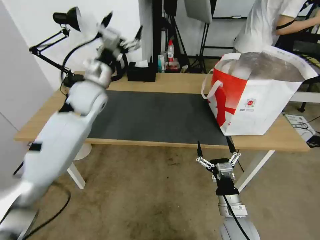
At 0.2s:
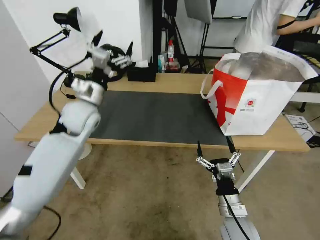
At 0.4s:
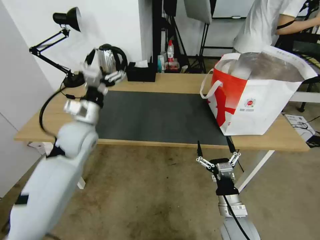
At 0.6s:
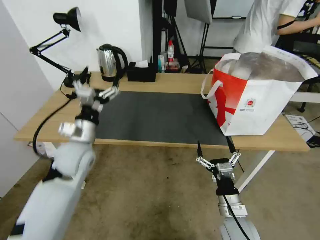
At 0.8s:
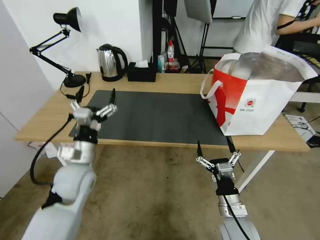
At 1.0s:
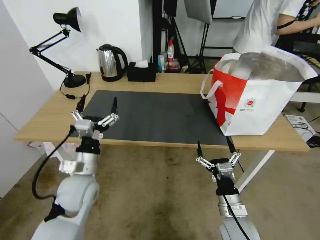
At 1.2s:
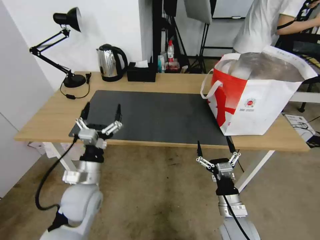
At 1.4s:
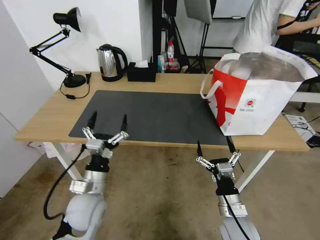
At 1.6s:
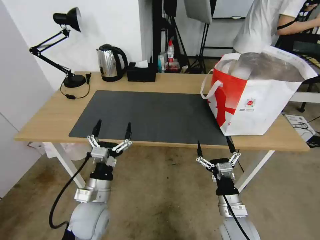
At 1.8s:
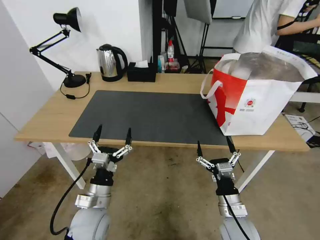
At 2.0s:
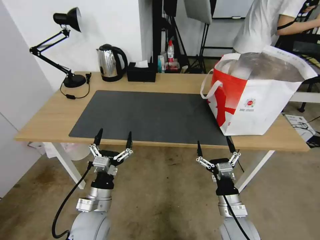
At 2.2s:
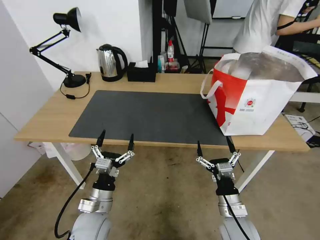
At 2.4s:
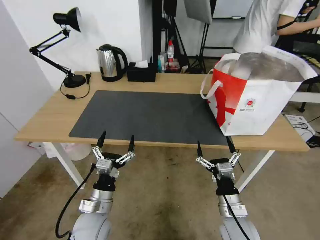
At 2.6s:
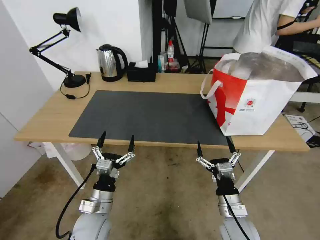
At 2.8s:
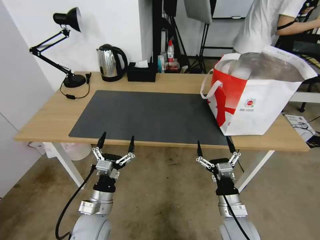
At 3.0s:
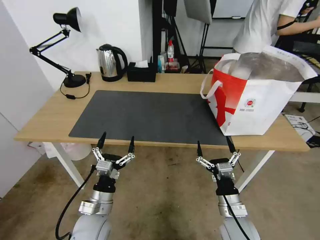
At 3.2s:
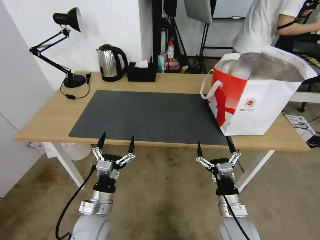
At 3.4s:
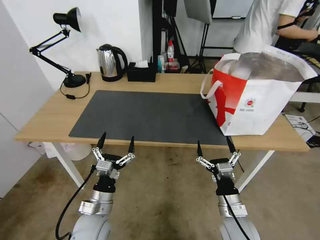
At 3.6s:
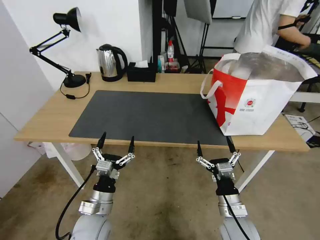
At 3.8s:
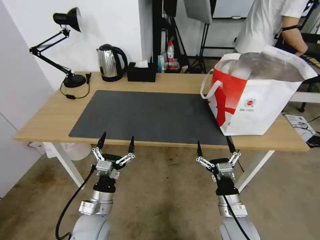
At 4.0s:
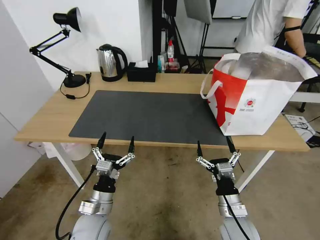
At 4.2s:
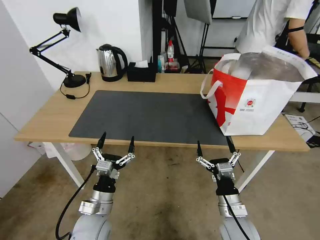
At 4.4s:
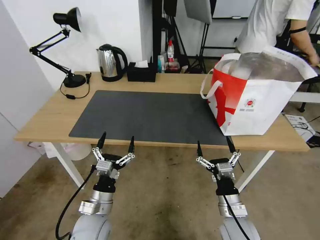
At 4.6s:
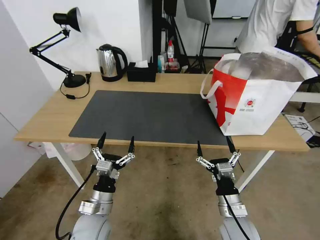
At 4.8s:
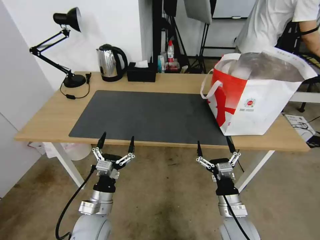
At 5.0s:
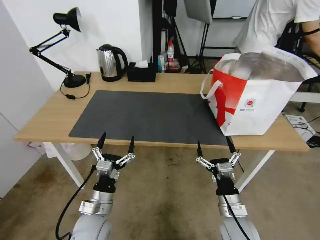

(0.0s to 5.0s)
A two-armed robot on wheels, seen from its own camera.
Task of the whole recording: Pick up the trash from the table and place it into the takeout bag.
0.0s - 1.6s: The left gripper is displaced backward and downward by about 35 cm.
1.6s - 3.4s: The grippers move only a little.
3.4s - 5.0s: The two grippers keep their place.

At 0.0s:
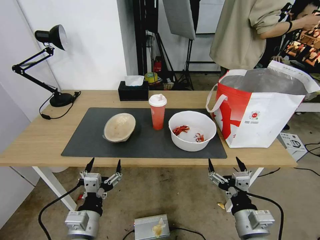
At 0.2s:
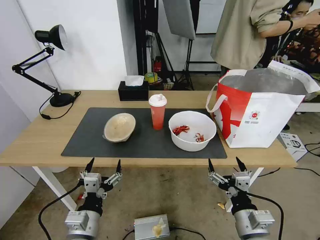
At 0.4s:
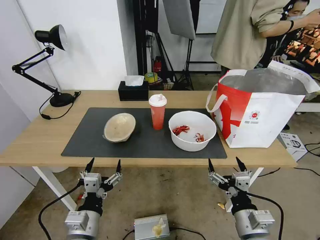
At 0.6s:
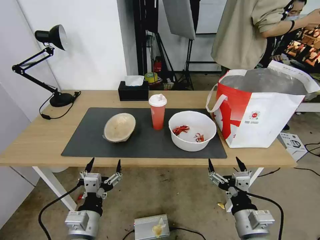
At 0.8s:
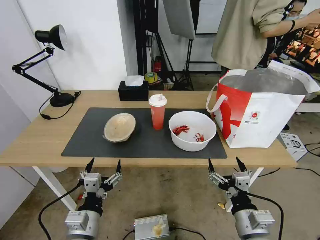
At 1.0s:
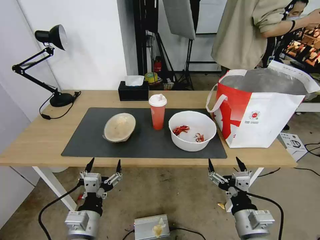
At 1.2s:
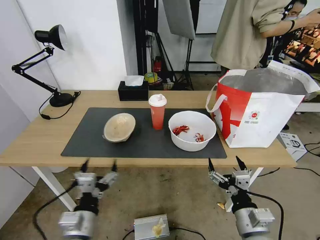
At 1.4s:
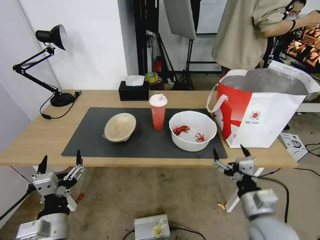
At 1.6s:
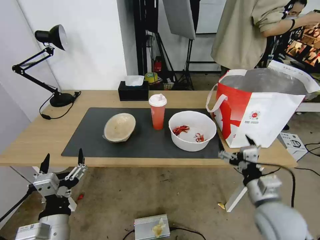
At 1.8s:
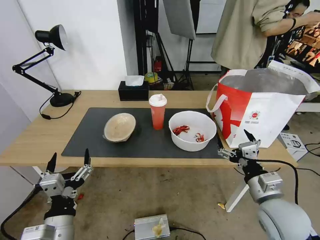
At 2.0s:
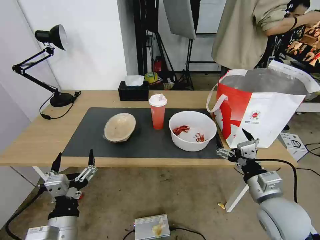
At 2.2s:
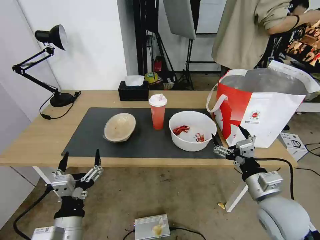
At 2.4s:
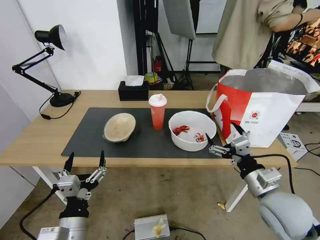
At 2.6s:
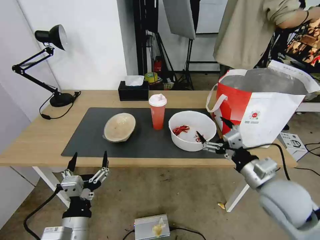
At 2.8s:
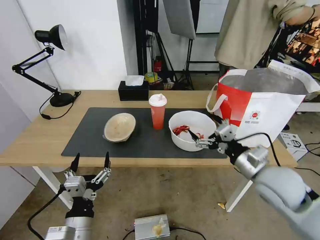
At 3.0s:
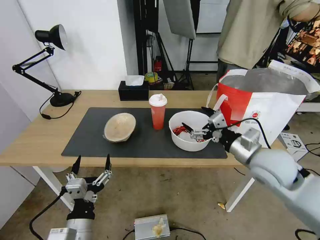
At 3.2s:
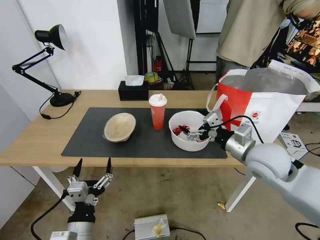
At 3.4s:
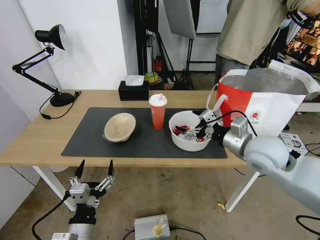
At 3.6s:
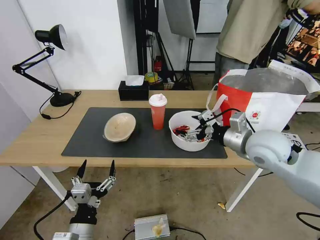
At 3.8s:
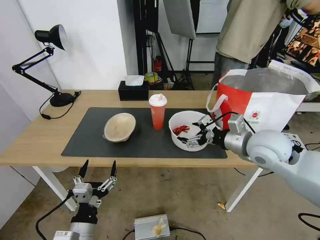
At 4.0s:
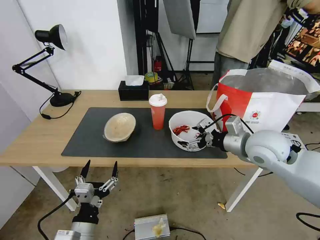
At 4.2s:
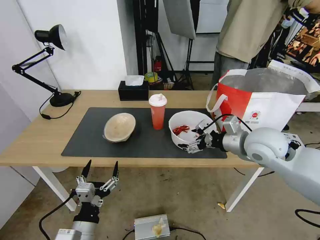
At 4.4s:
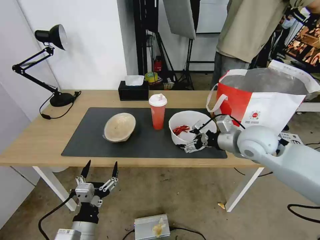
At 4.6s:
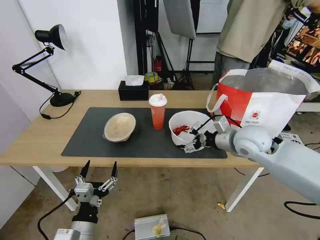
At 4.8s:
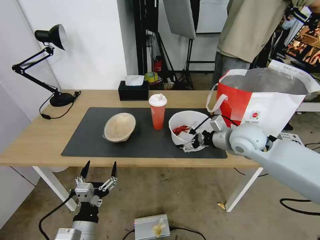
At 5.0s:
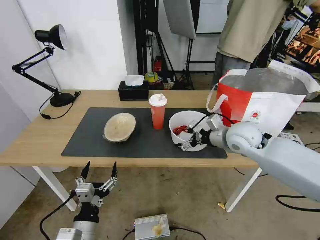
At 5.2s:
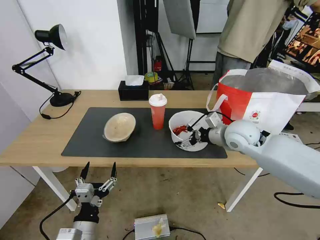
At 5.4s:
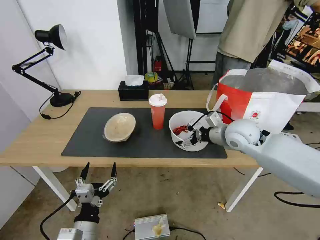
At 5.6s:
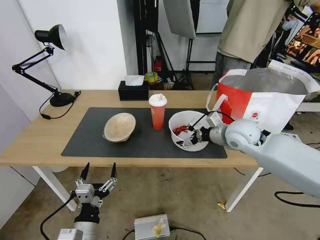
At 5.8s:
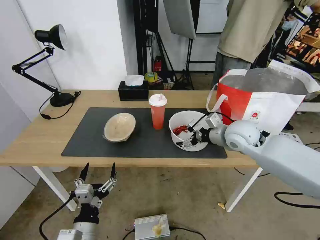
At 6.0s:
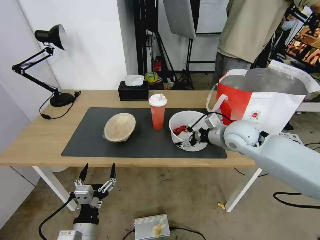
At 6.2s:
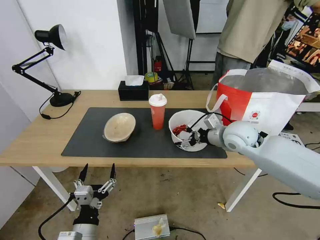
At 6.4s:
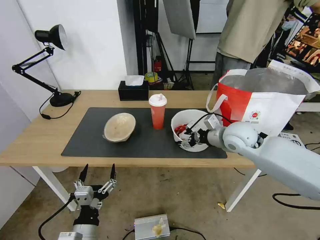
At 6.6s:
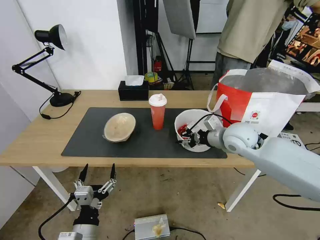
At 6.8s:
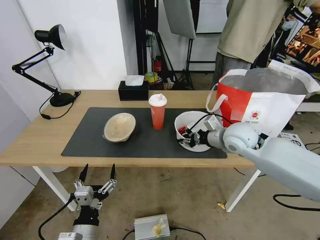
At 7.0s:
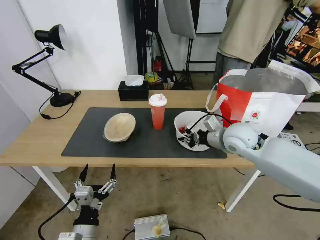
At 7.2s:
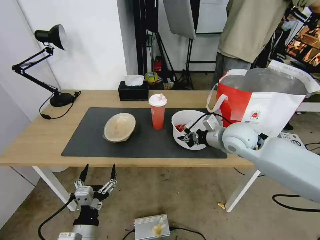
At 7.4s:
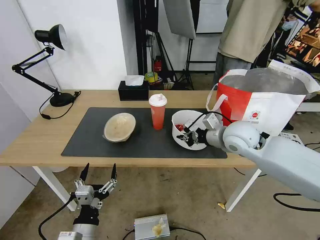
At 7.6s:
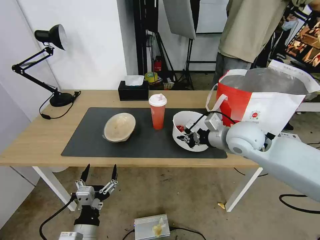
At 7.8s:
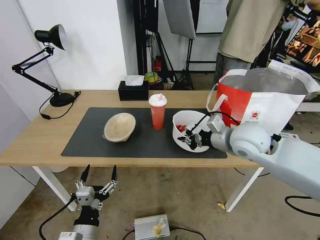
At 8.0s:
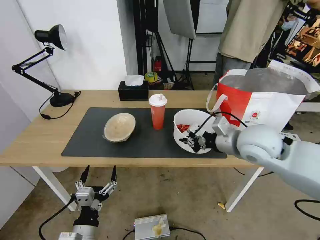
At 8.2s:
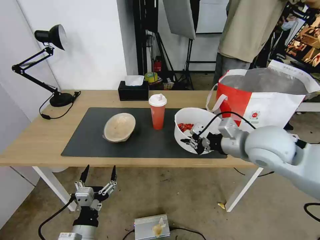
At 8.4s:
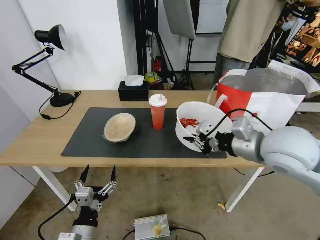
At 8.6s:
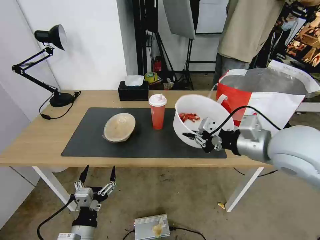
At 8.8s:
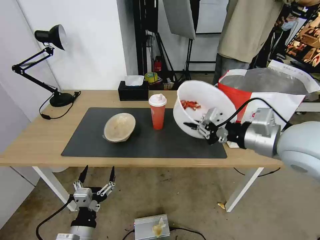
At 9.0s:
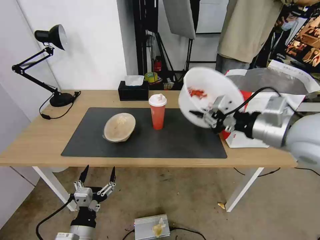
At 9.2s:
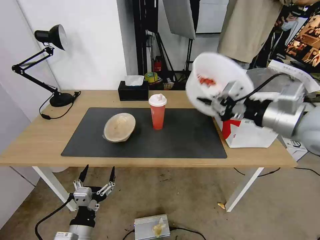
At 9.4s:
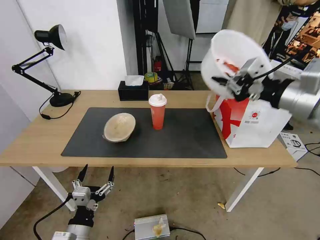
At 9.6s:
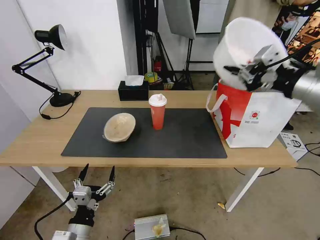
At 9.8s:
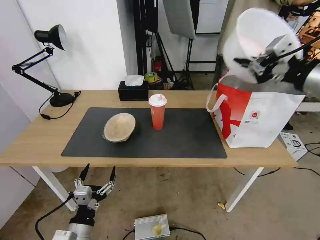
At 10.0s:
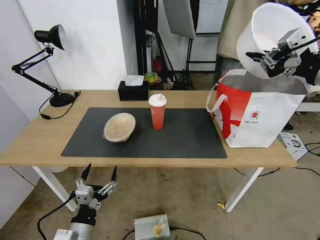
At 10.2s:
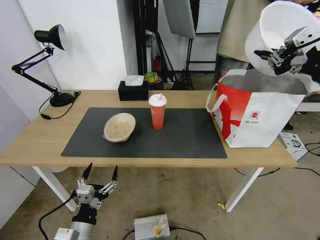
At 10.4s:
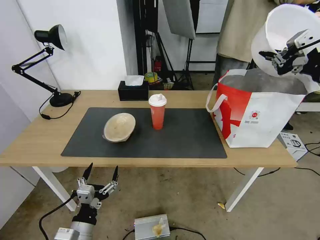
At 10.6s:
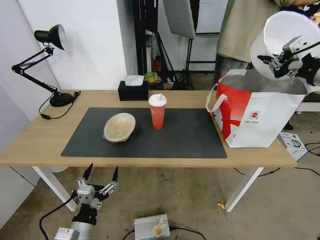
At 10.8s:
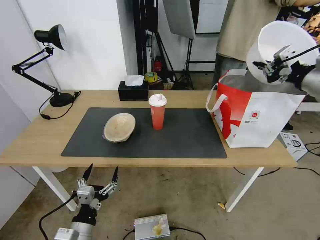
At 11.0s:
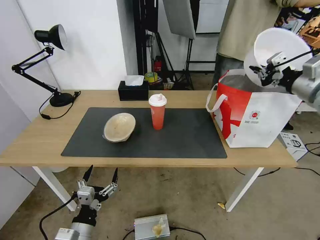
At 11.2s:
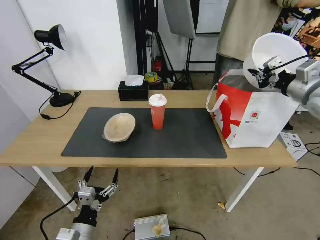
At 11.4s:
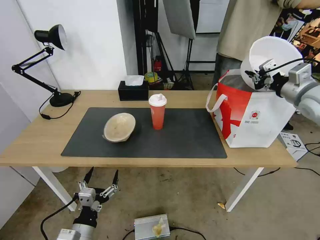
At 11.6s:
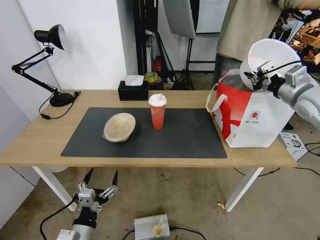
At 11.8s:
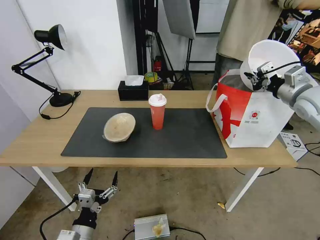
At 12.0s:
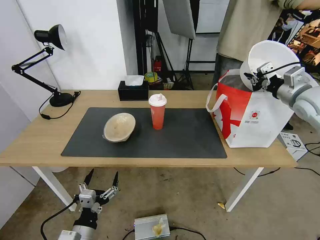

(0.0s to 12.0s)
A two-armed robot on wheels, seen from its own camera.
Task of the whole recording: Pick up the trash from the table and place it into the takeout bag.
1.6s - 3.0s: The right gripper is displaced forward and upward by about 15 cm.
3.0s - 4.4s: The right gripper is displaced forward by approximately 5 cm.
4.4s - 6.0s: The right gripper moves roughly 5 cm.
6.0s - 7.6s: The right gripper closes.
7.6s - 9.0s: The right gripper moves upward, backward and to the right, approximately 15 cm.
9.0s - 10.4s: The right gripper travels to the right, upward and forward by roughly 15 cm.
10.4s - 12.0s: The right gripper shifts approximately 15 cm downward and forward.

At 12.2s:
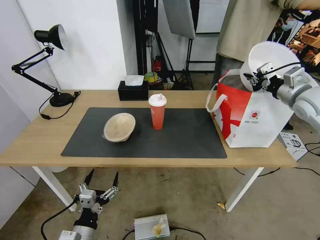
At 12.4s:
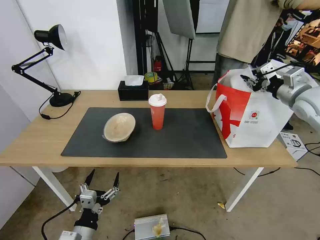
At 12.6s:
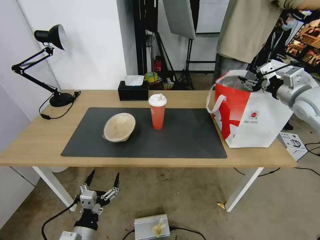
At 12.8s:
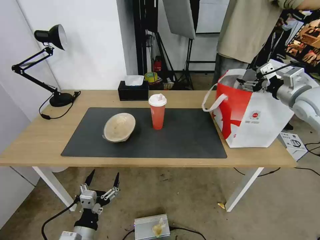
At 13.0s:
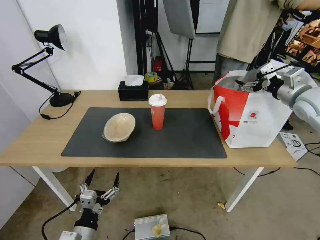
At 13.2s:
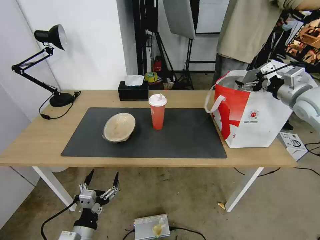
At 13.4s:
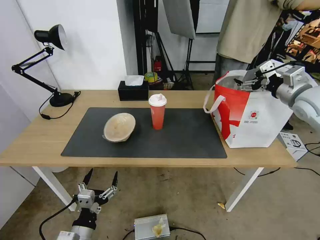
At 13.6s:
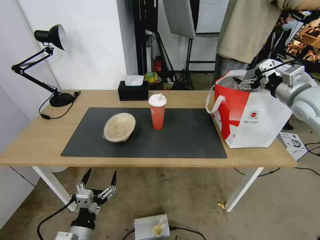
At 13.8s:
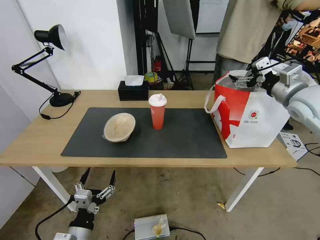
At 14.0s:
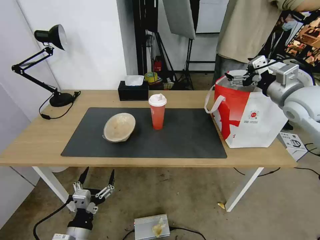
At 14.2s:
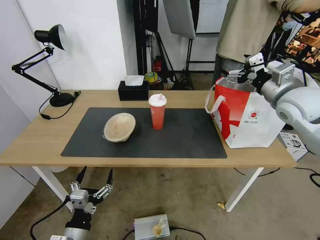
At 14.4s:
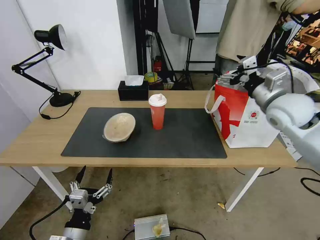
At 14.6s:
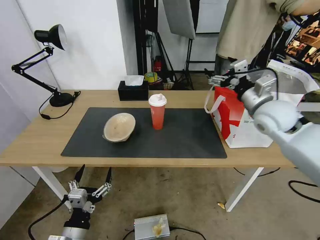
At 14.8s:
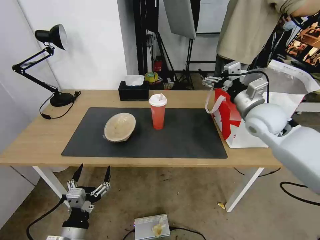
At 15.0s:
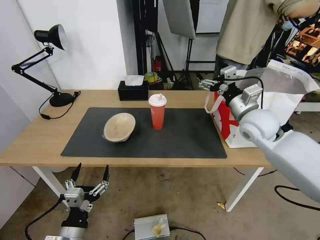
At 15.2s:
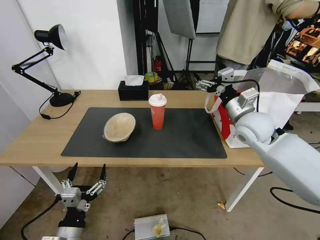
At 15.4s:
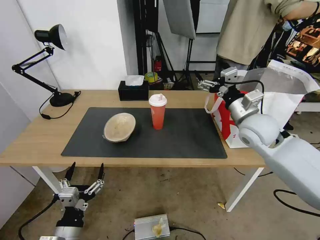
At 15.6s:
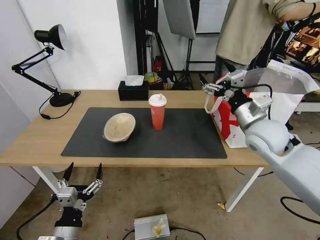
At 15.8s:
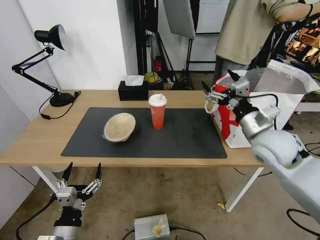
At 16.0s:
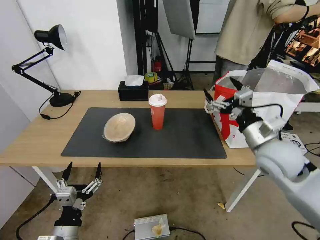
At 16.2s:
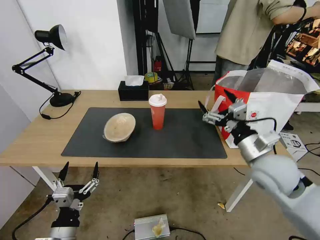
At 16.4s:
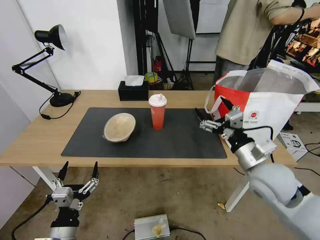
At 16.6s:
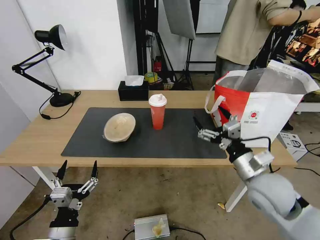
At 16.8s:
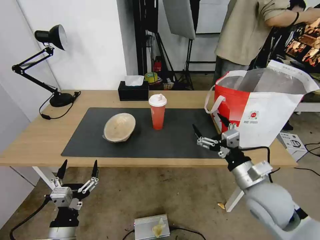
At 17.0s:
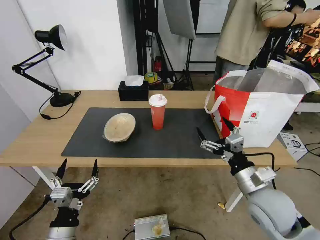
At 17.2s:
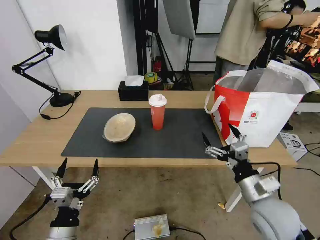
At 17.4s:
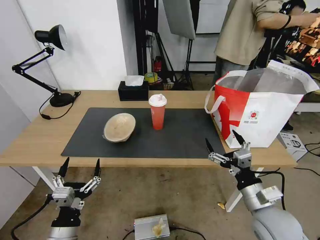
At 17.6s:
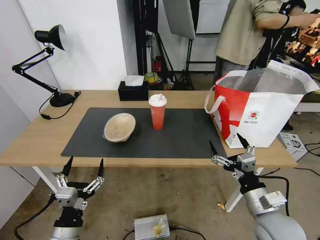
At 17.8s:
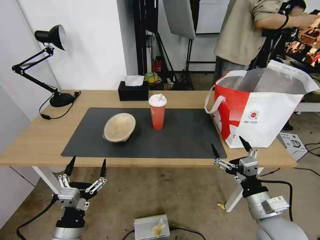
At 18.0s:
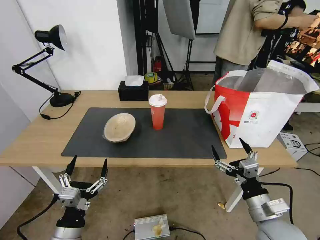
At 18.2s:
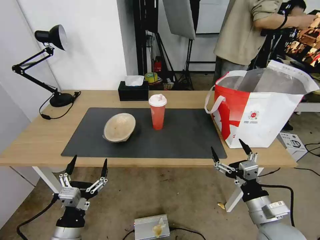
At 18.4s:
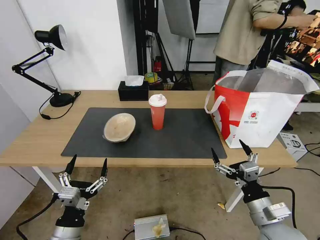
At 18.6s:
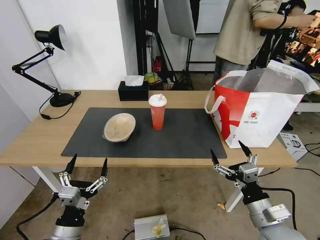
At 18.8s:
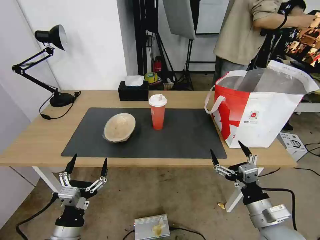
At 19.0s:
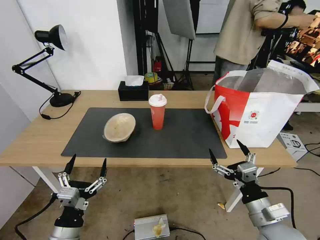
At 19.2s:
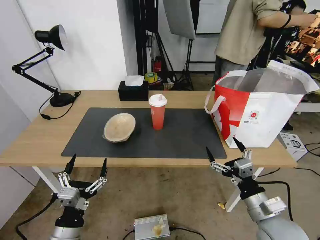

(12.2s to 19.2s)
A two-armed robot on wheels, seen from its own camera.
Task of the whole recording: Pick up the trash from the table and place it into the takeout bag.
12.2s - 13.6s: The right gripper opens its fingers.
13.6s - 15.0s: The right gripper shifts about 15 cm to the left and downward.
15.0s - 16.4s: The right gripper shifts about 15 cm backward and downward.
16.4s - 17.8s: The right gripper shifts approximately 15 cm backward and downward.
17.8s - 19.2s: The grippers stay close to where they were, moving slightly.
